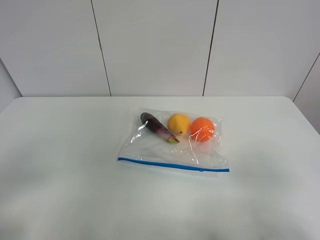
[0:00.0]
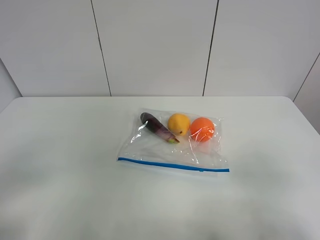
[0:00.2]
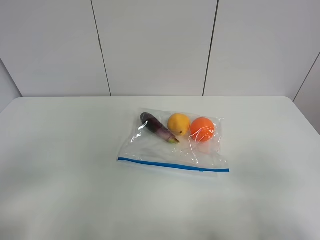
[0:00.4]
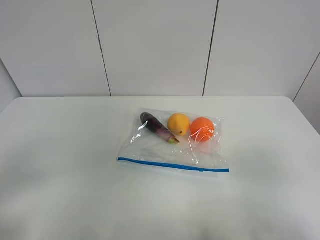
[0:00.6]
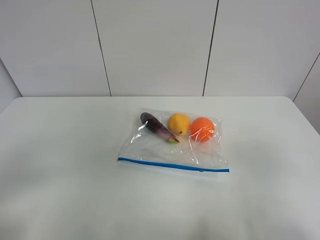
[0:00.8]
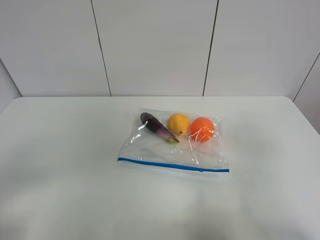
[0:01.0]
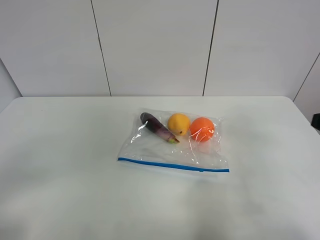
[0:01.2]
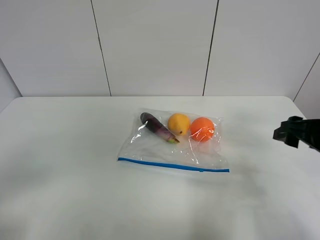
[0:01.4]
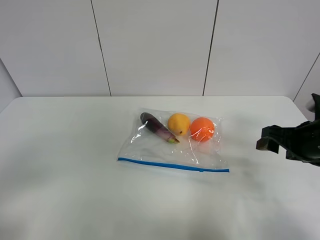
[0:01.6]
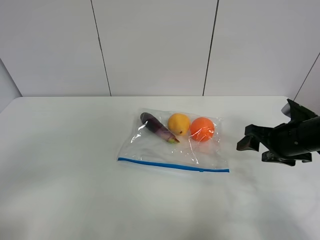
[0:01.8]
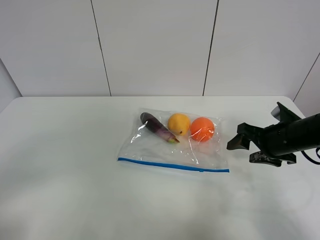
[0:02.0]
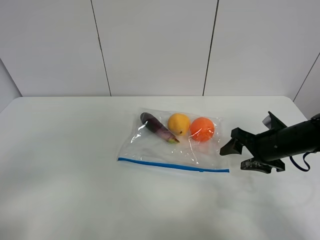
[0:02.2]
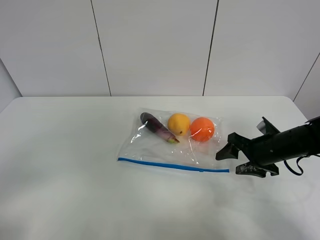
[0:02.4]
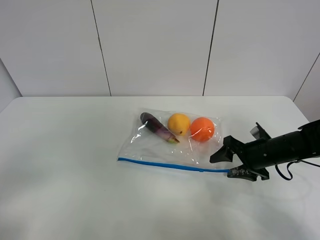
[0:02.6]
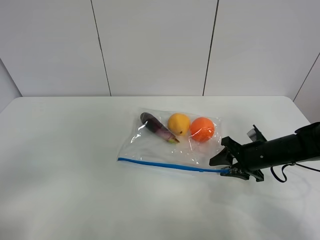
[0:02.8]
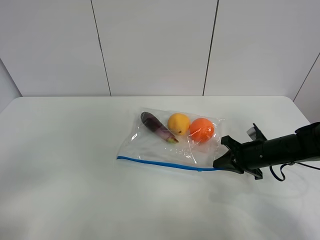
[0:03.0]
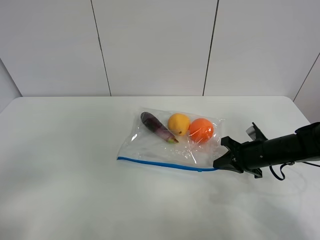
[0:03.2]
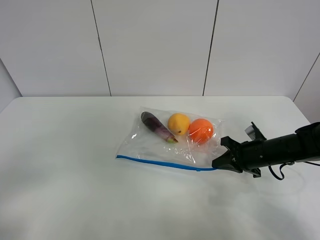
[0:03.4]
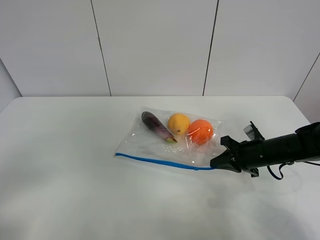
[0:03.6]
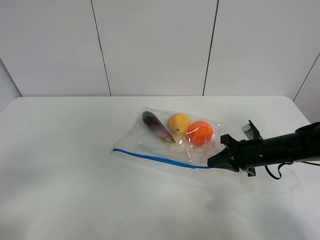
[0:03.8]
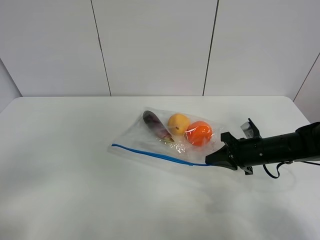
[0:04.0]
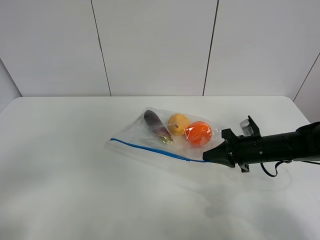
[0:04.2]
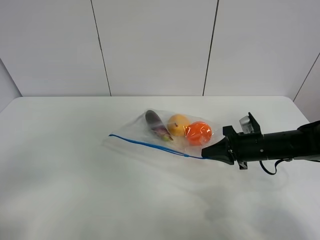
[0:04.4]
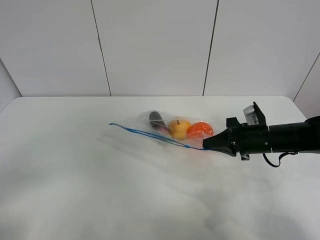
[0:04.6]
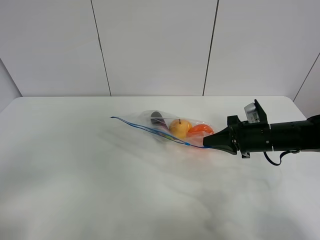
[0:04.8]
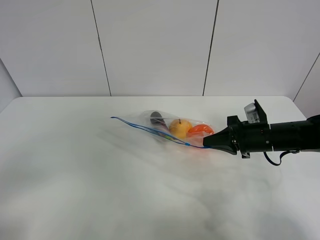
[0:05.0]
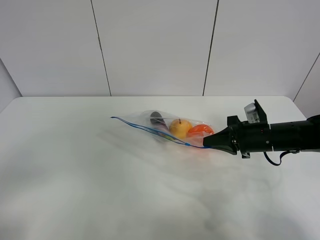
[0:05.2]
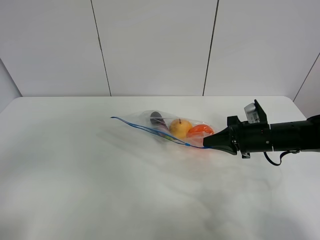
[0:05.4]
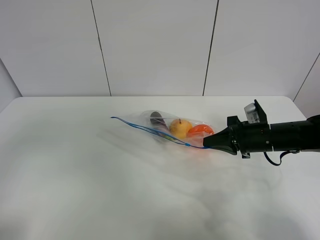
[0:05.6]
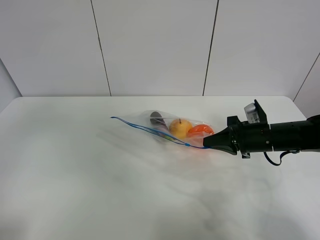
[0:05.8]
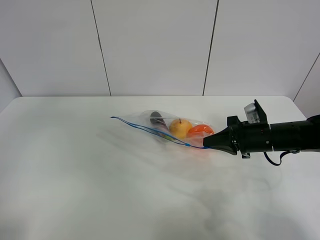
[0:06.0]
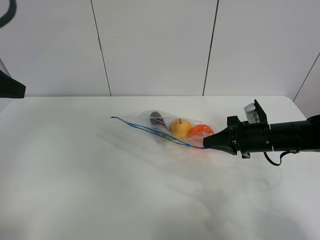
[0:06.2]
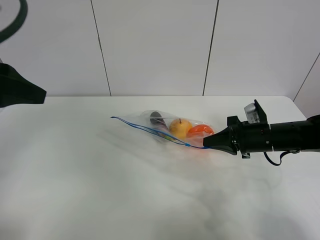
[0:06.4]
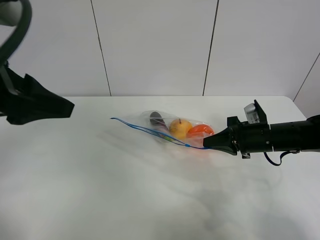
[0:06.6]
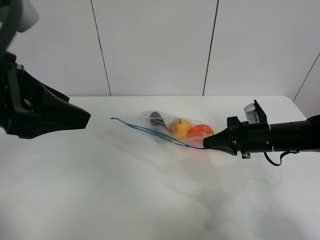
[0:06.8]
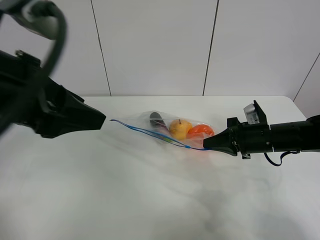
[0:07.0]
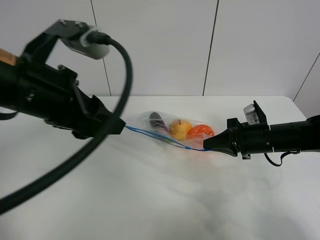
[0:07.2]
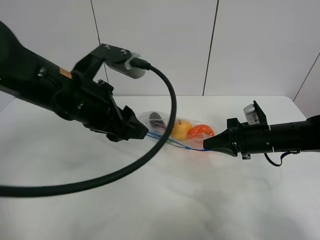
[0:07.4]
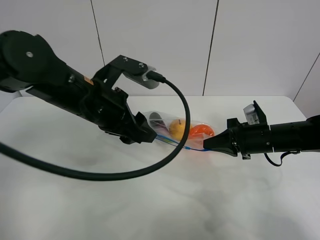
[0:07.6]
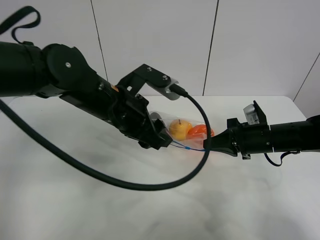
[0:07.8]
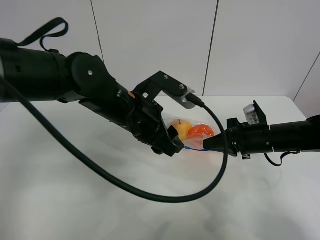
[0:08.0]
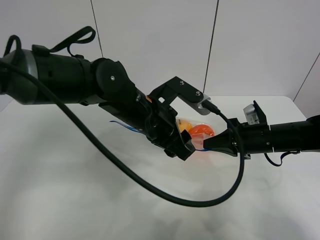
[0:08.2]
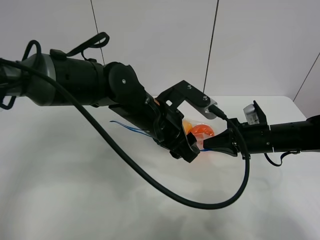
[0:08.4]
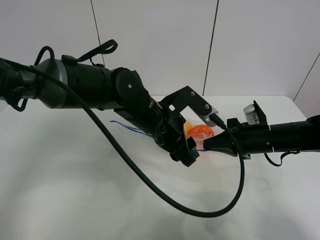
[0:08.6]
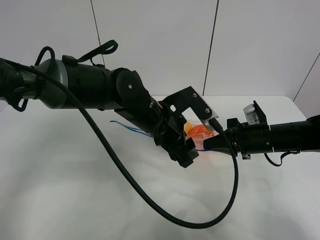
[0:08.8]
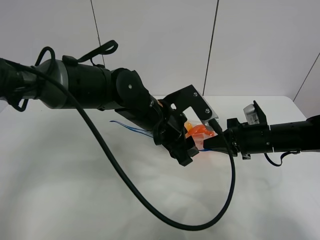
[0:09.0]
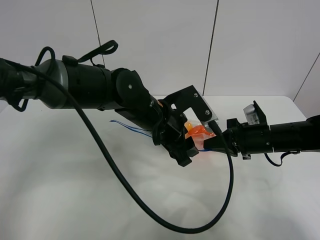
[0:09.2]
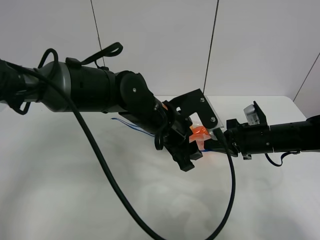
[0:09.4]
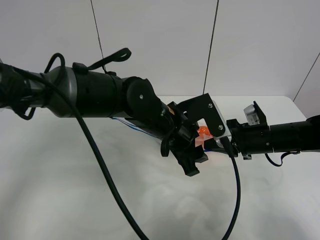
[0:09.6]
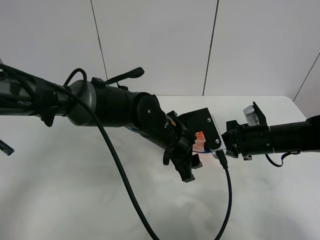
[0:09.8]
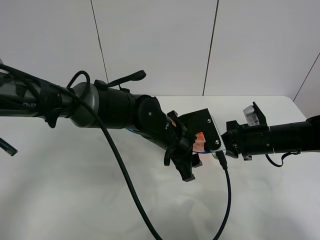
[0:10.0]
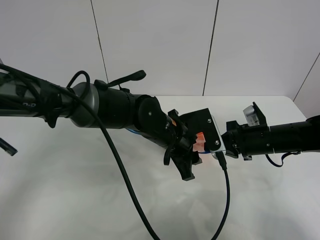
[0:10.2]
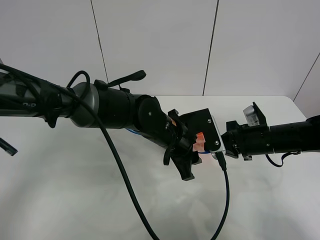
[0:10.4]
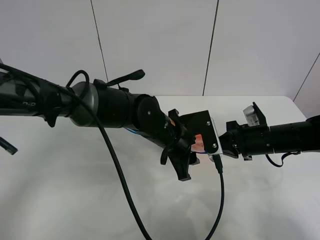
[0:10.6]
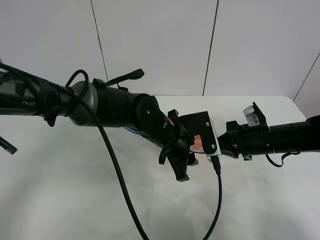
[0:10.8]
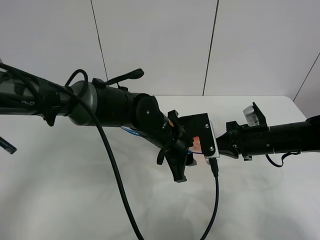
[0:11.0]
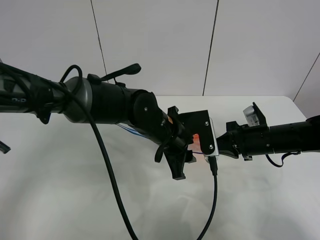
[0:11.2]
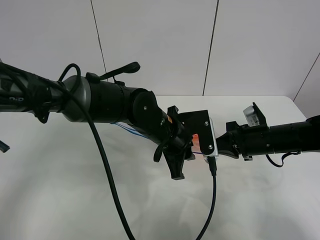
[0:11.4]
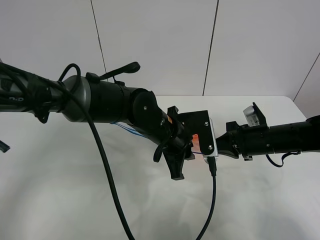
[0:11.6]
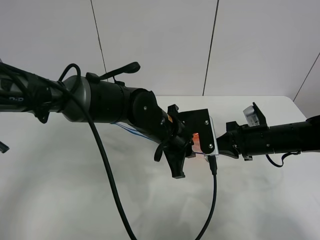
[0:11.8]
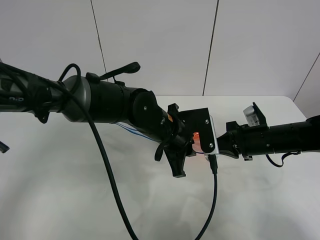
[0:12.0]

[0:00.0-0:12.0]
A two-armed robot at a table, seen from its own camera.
Step, 0:00.0 to 0:03.0: Grasp the fruit bag with right gripper.
Step, 0:03.2 to 0:04.8: Lift the fruit bag with your right gripper.
0:00.0 to 0:01.6: The right gripper is displaced forward by roughly 25 cm.
0:01.6 to 0:03.0: The right gripper moves downward and forward, approximately 10 cm, and closes up.
0:04.4 to 0:06.0: The left gripper heads forward and upward, covering about 20 cm.
0:06.0 to 0:07.6: The left gripper is displaced to the right, downward and forward by some 25 cm.
0:07.6 to 0:09.0: The left gripper moves to the right and downward, about 10 cm.
0:09.0 to 0:10.4: The grippers stay close to where they were, moving slightly.
0:10.4 to 0:12.0: The grippers make only small movements.

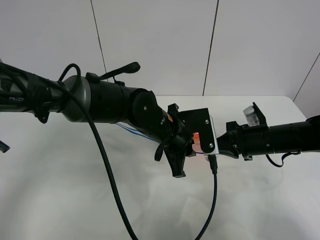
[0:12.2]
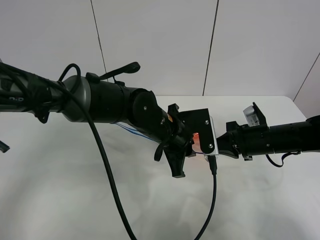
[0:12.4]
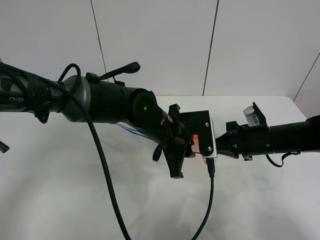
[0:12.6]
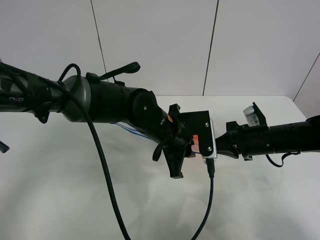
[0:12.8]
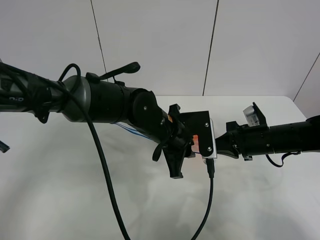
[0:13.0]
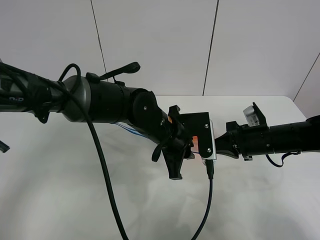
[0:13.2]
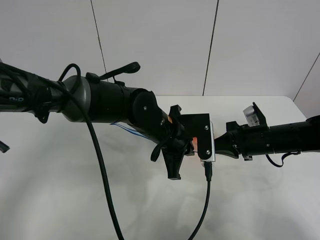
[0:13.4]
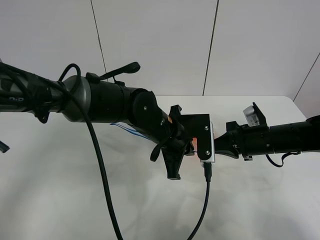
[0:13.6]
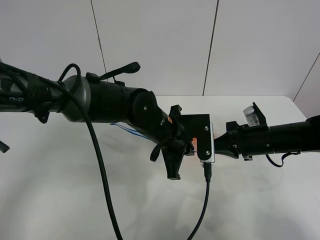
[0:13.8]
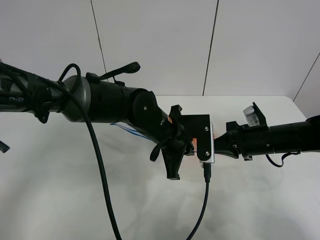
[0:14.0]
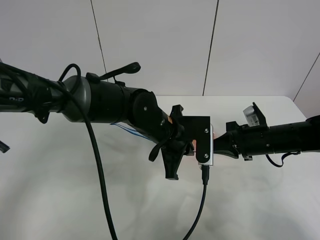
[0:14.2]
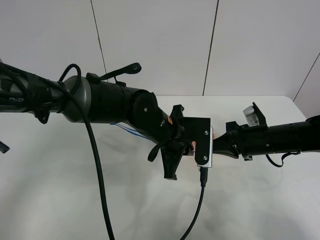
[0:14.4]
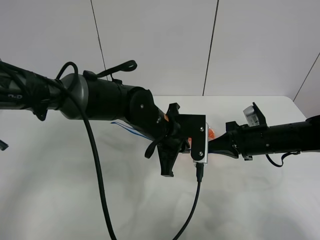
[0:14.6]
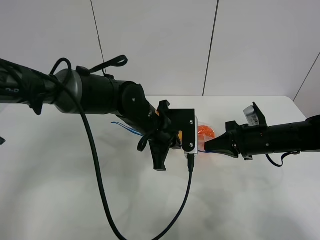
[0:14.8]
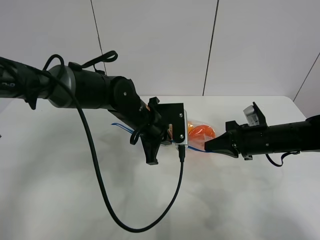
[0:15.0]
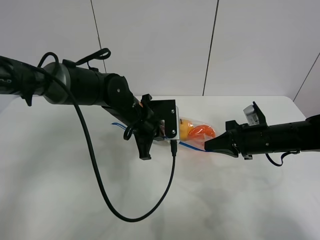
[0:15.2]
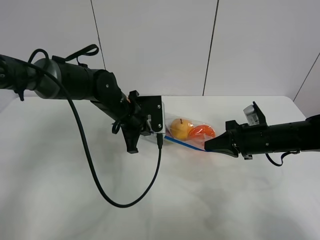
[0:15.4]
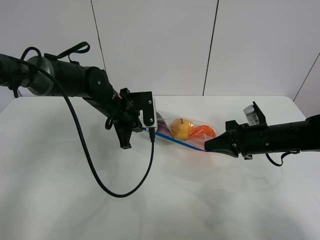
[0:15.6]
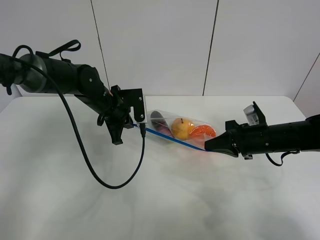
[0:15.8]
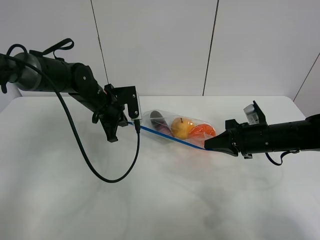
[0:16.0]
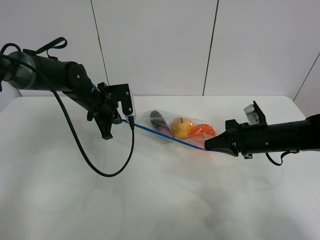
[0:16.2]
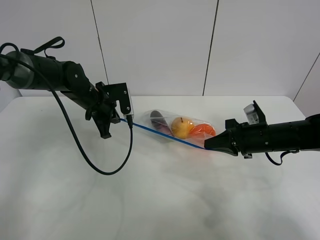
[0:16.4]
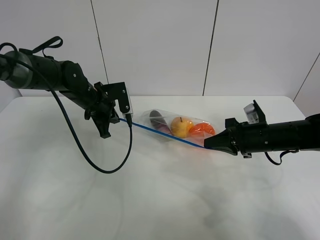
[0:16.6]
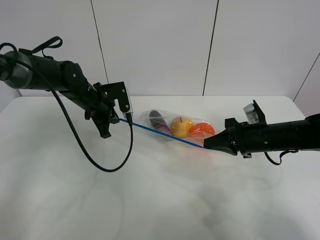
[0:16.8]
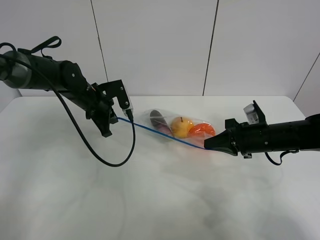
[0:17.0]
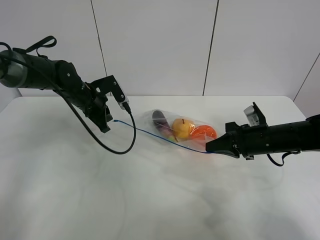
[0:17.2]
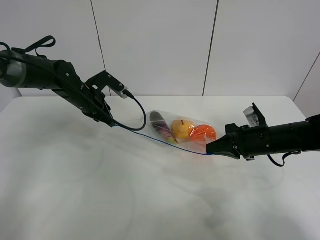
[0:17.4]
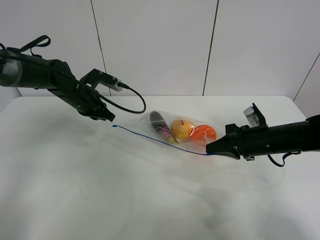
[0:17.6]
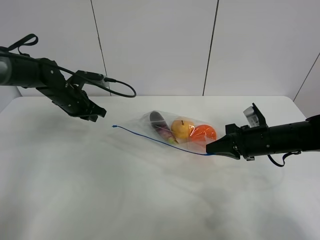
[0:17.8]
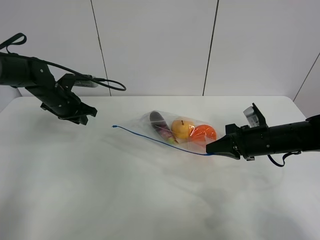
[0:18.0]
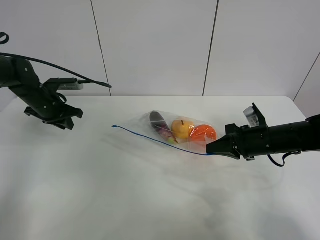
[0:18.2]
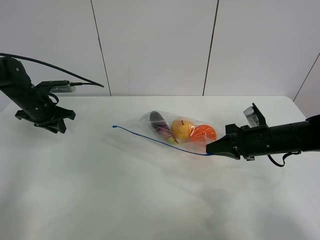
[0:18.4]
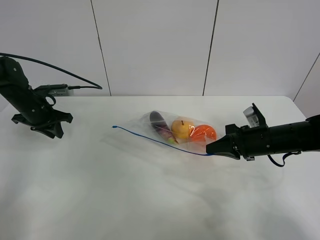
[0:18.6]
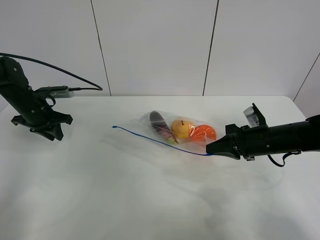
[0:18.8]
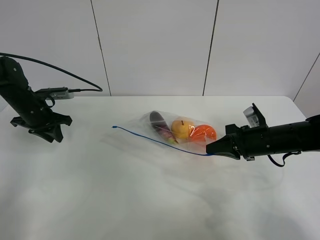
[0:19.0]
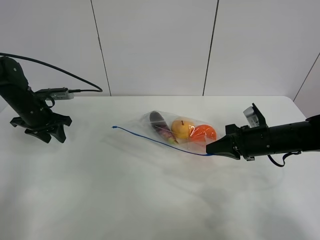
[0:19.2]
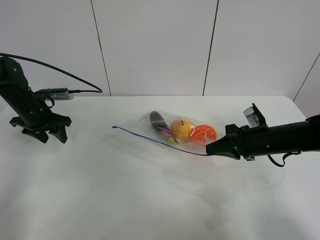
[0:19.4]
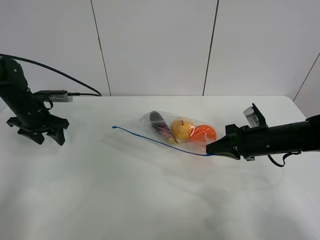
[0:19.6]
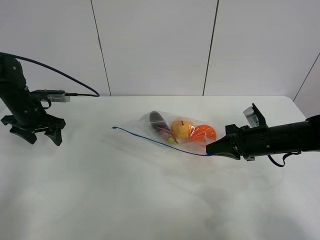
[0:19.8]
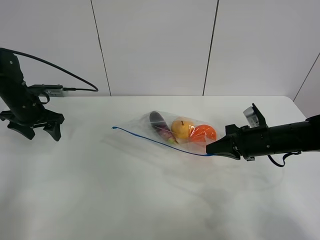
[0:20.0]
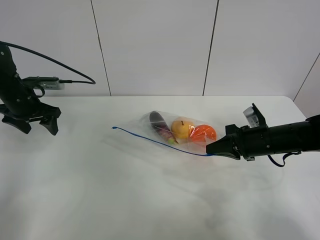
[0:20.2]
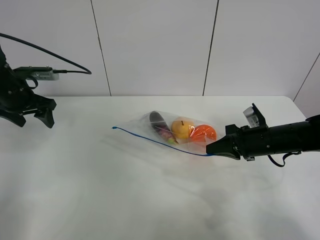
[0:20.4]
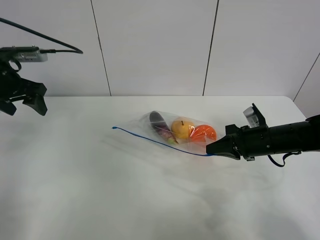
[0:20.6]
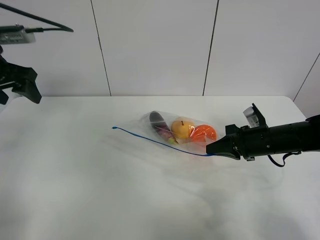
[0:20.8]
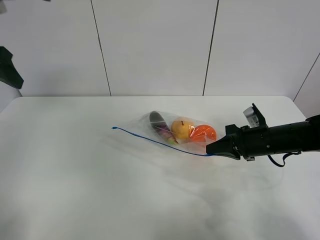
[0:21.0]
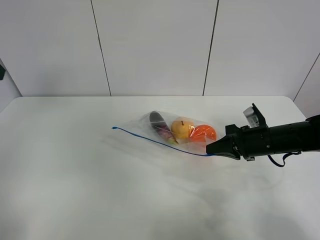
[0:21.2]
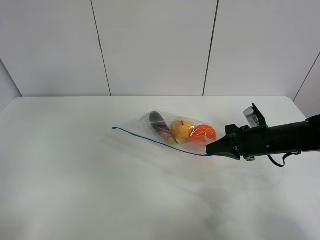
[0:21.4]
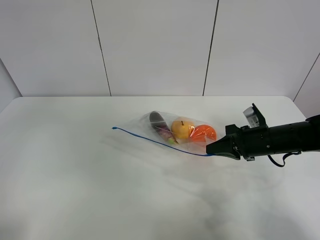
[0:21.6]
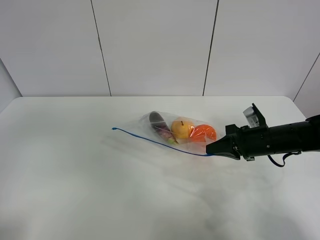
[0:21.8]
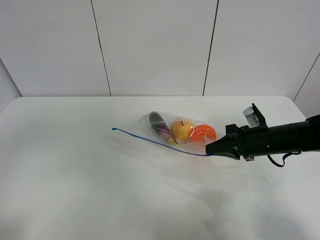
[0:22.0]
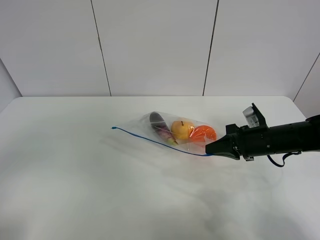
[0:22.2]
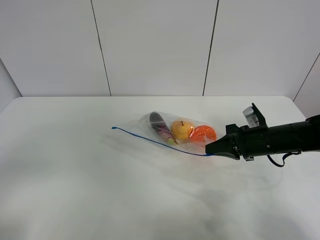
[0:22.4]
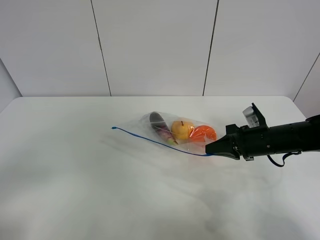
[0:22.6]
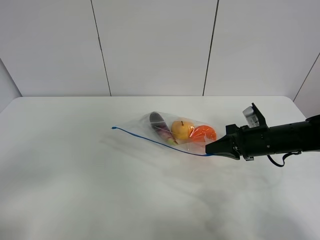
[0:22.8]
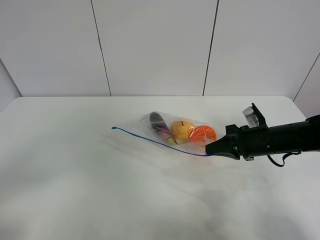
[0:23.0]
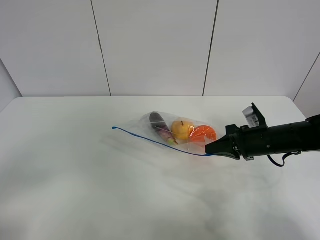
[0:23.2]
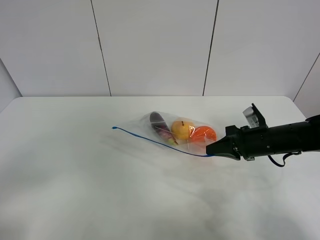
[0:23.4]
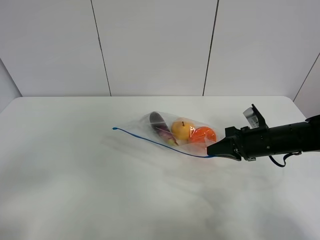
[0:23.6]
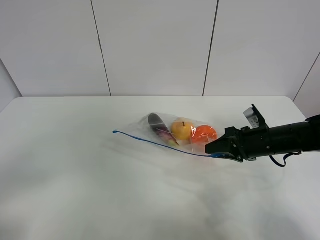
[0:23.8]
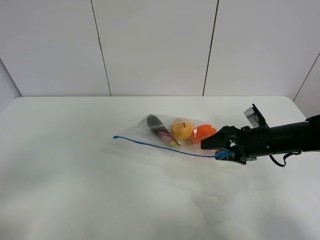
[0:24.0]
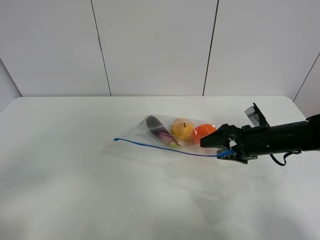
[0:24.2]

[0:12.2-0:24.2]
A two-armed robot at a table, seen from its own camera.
Step, 0:12.2 to 0:17.2: Pull the fruit bag with left gripper.
0:12.2 to 0:13.8: The left gripper closes.
0:13.8 to 0:15.2: The left gripper goes roughly 10 cm to the left and forward.
0:15.2 to 0:16.6: The left gripper goes about 15 cm to the left and forward.
0:16.6 to 0:18.2: The left gripper goes some 15 cm to the left.
0:18.2 to 0:19.8: The left gripper opens up.
0:19.8 to 0:21.2: The left gripper moves upward and backward, about 30 cm.
0:21.2 to 0:22.6: The left gripper is displaced backward and downward by about 25 cm.
0:22.6 to 0:24.2: The right gripper opens.
